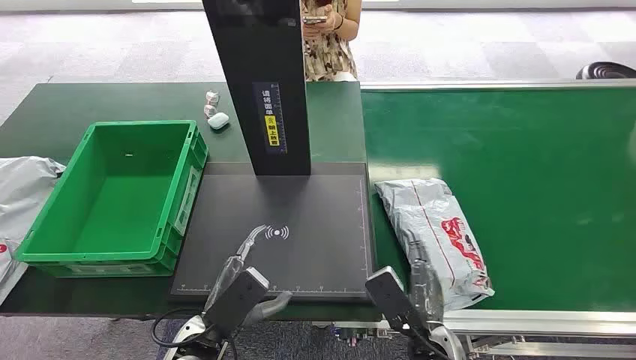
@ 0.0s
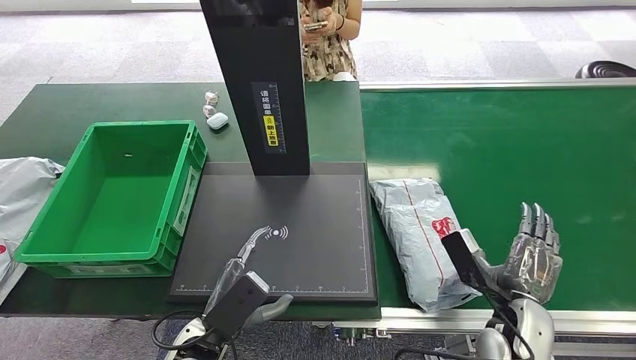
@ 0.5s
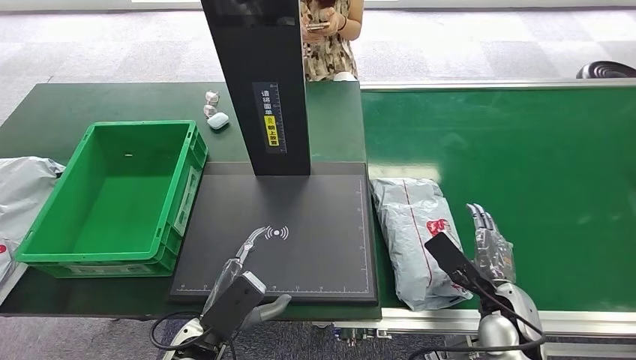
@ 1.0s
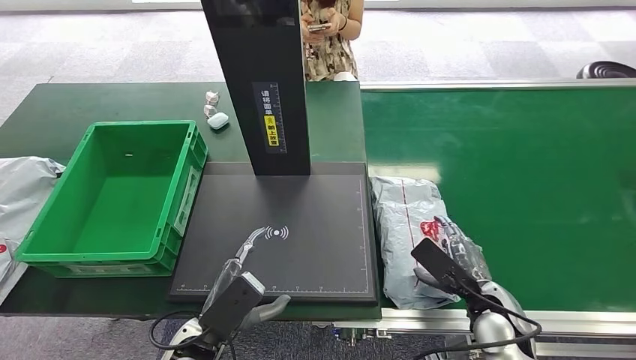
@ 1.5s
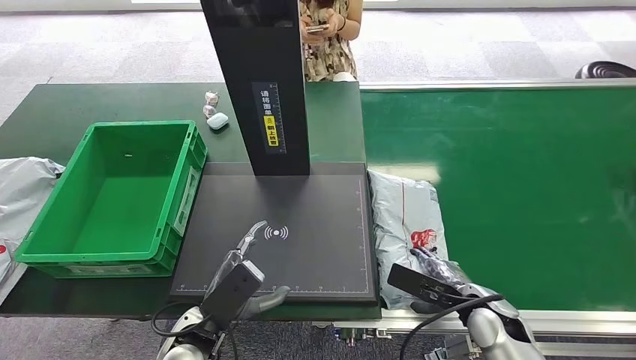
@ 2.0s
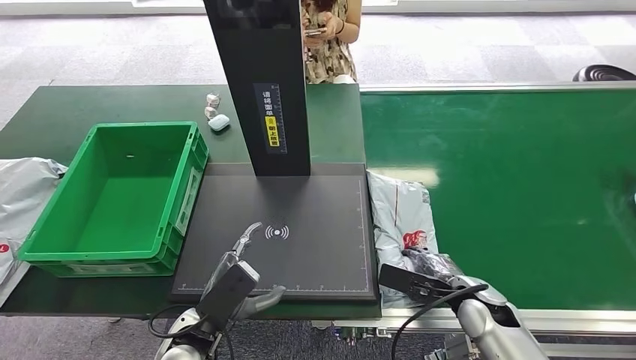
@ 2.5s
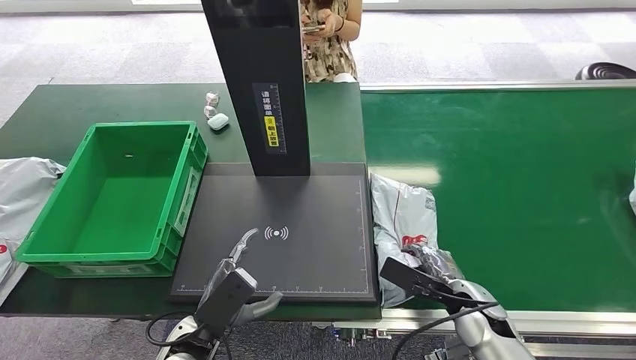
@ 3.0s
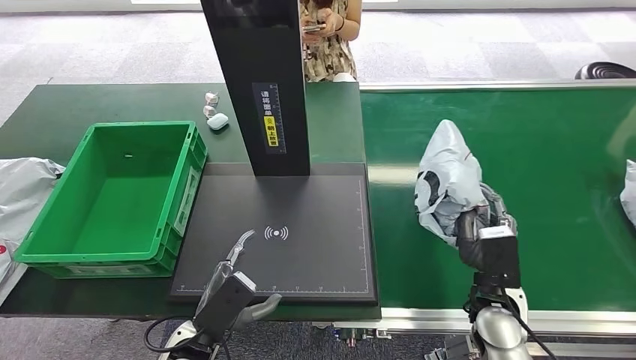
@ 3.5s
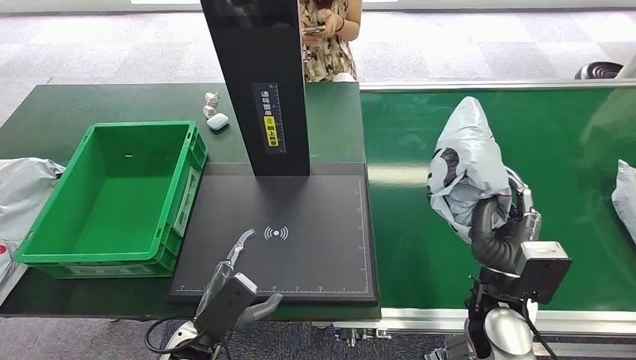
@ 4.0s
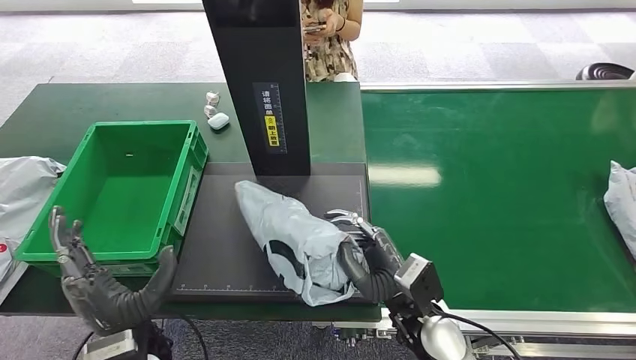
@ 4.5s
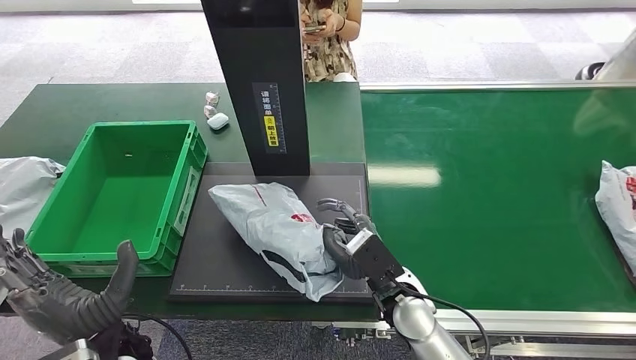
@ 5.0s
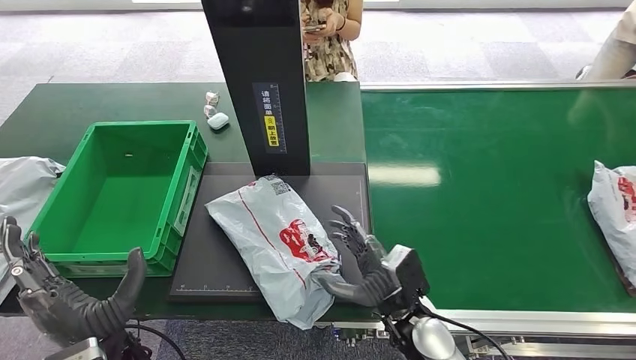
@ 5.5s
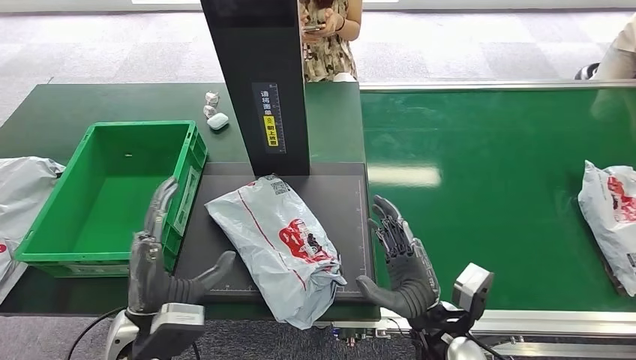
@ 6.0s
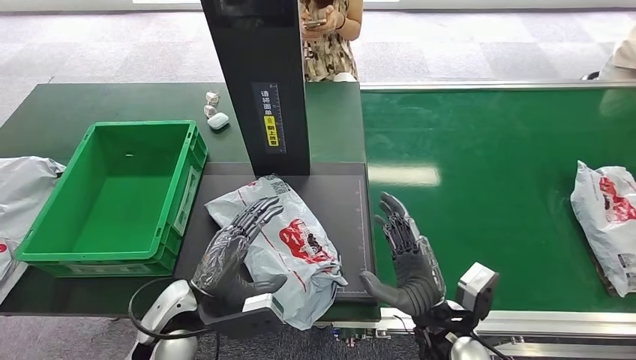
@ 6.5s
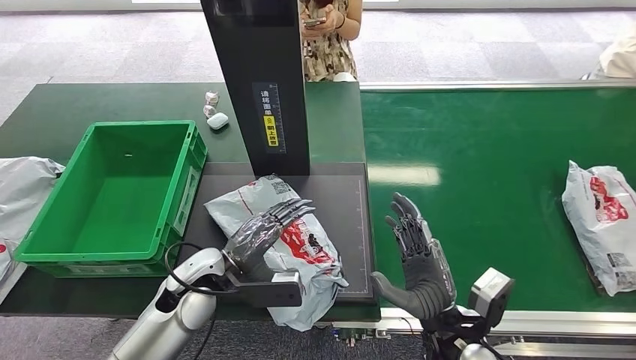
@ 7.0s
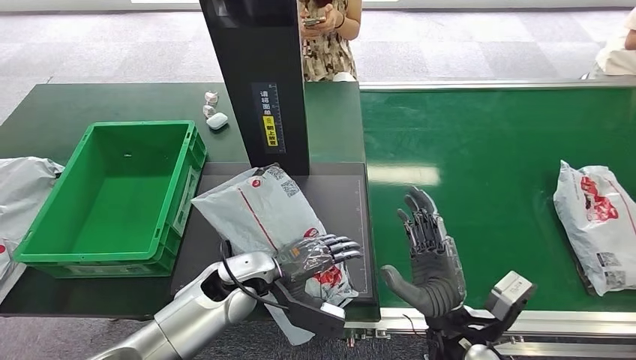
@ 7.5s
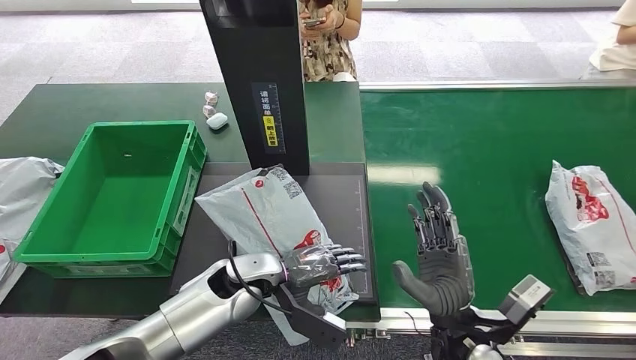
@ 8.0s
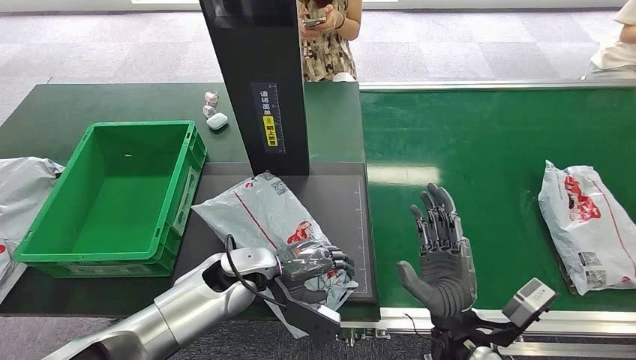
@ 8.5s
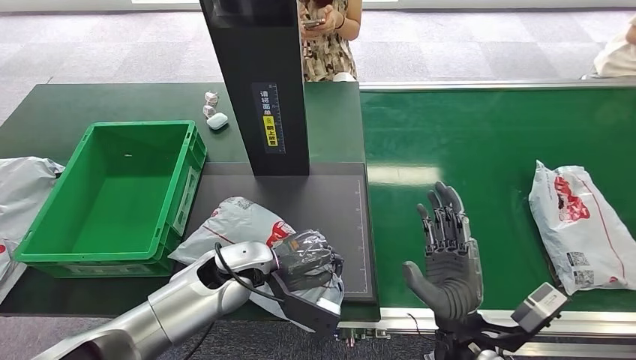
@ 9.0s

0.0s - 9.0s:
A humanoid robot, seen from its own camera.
Step, 0.0s - 3.5s: Pick up the package from the conveyor belt.
Step, 4.0s - 5.5s: Place the package onto the inbound machine.
2.0s - 4.5s: The right hand travels to the left and upward by approximately 15 cm; the left hand moves to the left, approximately 5 cm.
4.5s - 7.0s: The left hand shifts roughly 10 cm forward and to the right. Meanwhile the right hand ends up about 5 cm from where it was.
7.0s - 9.0s: The left hand moves to the right, roughly 5 cm.

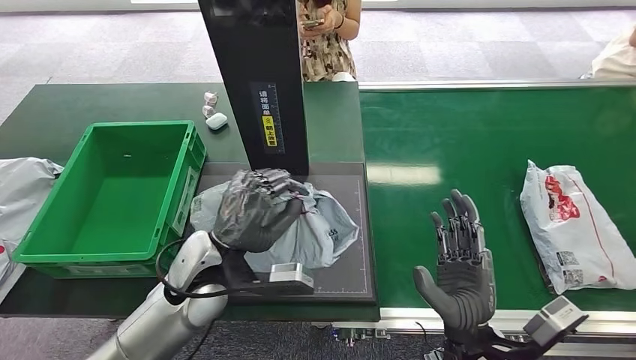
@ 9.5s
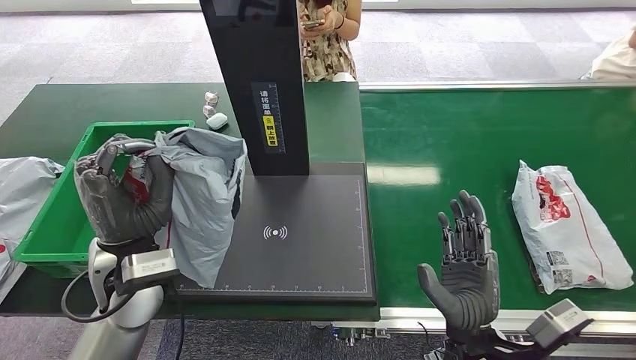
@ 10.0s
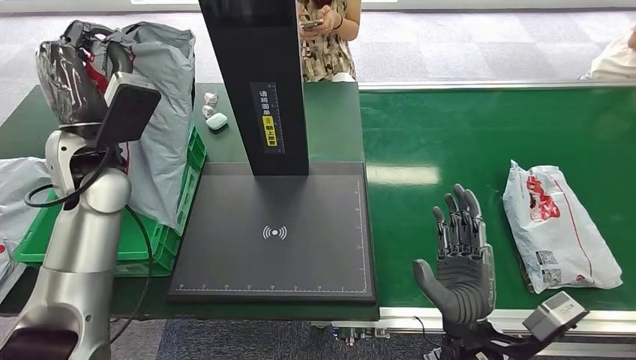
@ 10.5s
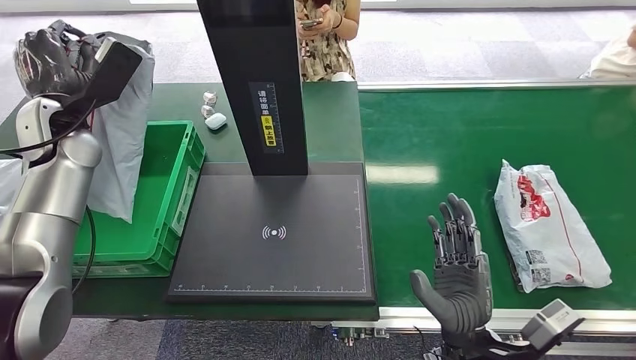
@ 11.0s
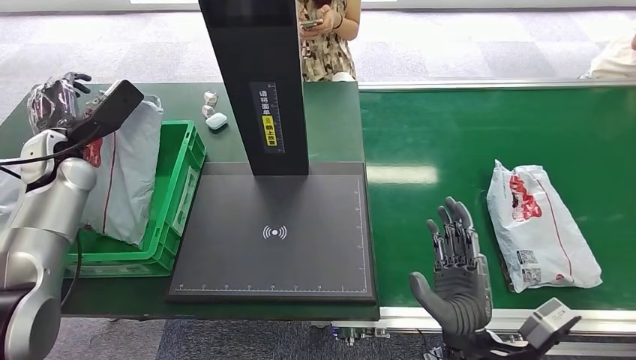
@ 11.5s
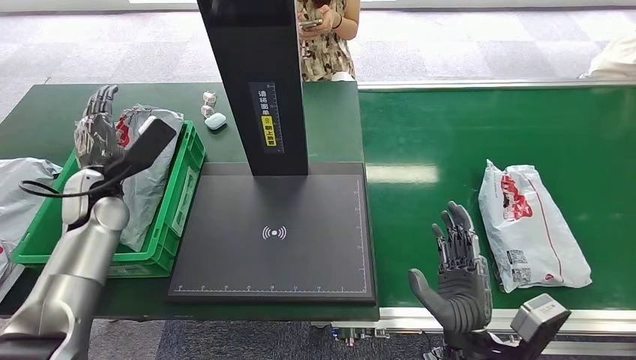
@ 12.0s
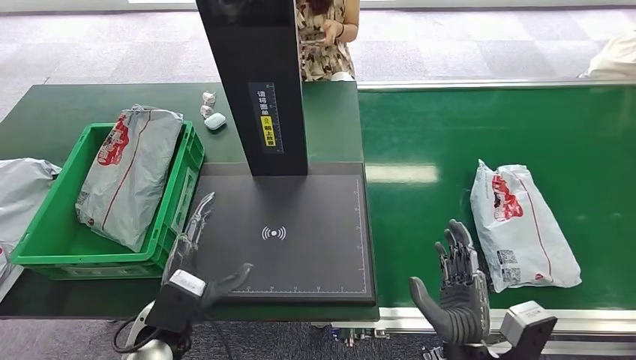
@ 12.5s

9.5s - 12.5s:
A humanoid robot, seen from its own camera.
Step, 10.0s - 12.0s: Place the package into the parcel locker.

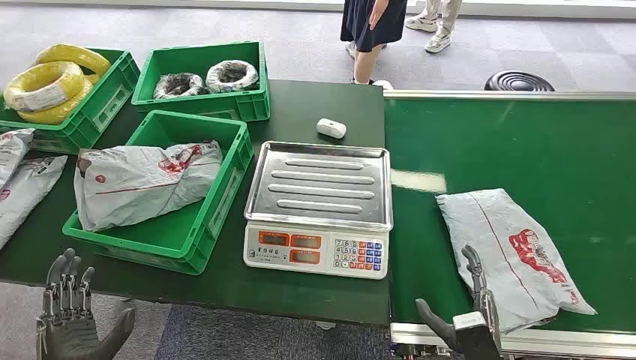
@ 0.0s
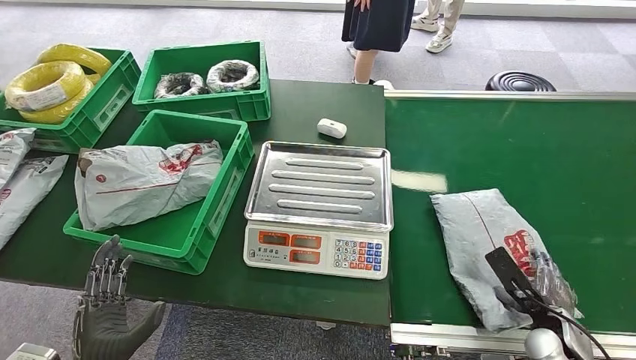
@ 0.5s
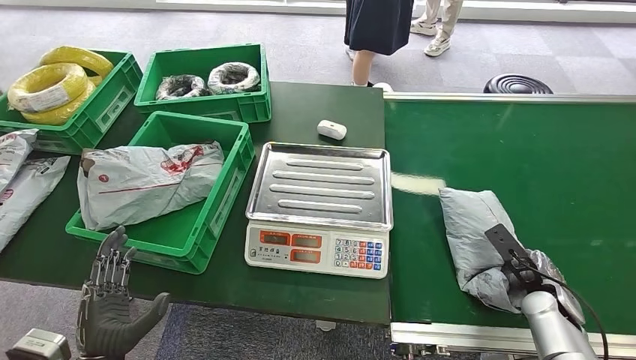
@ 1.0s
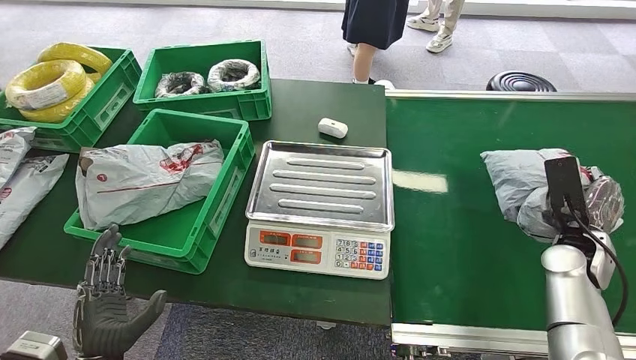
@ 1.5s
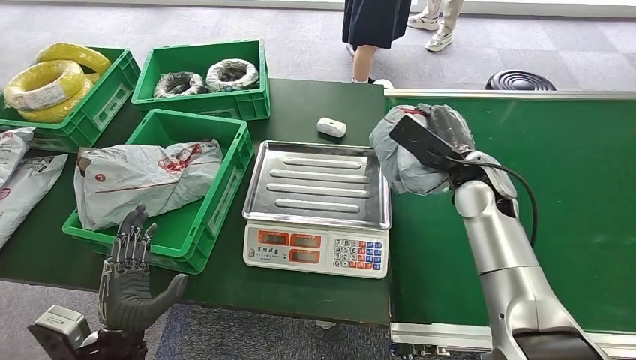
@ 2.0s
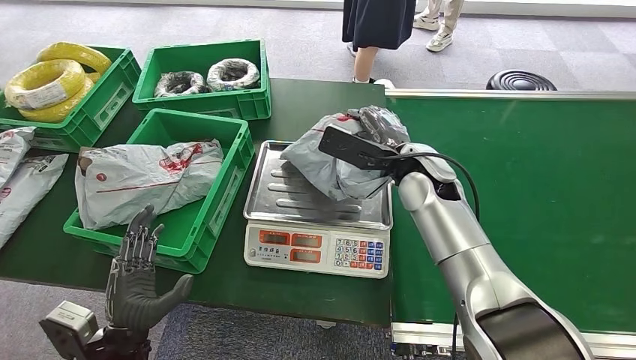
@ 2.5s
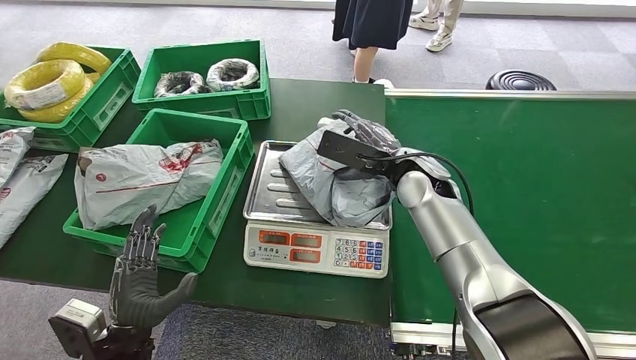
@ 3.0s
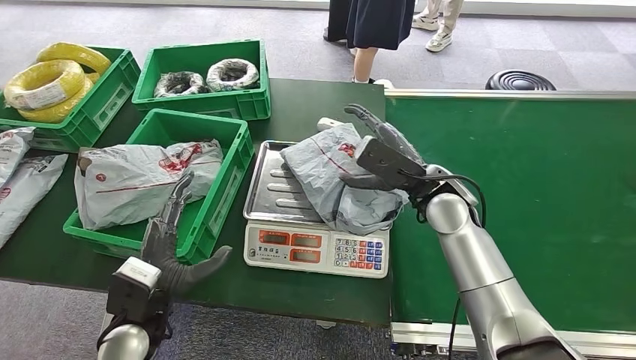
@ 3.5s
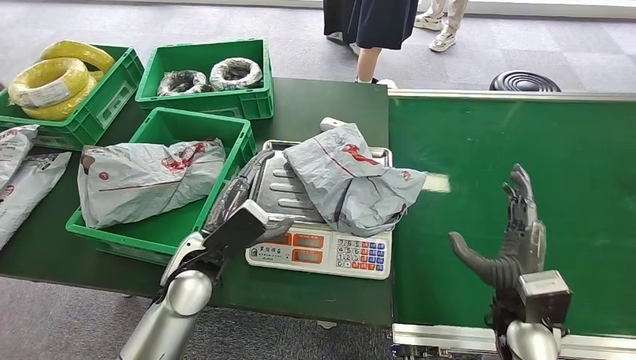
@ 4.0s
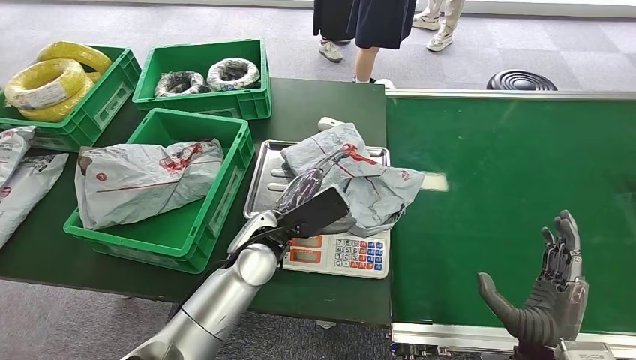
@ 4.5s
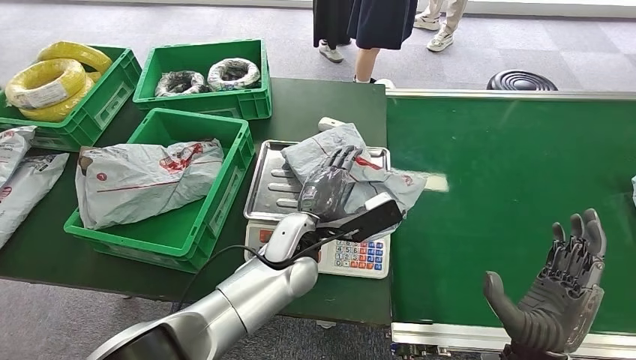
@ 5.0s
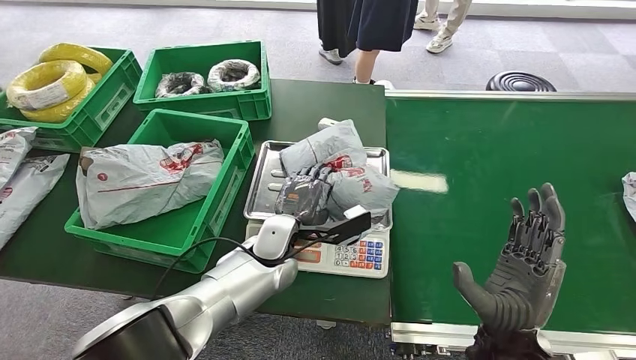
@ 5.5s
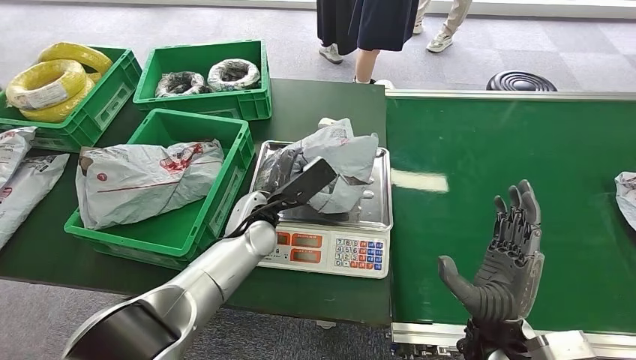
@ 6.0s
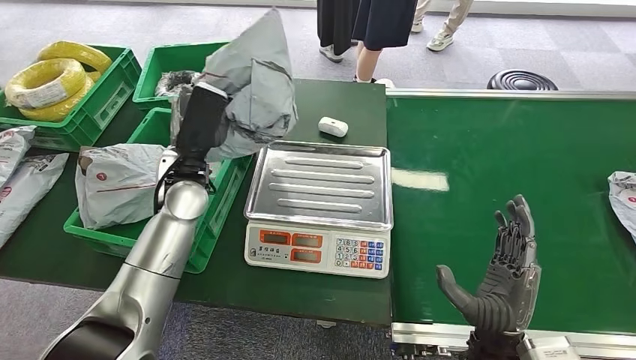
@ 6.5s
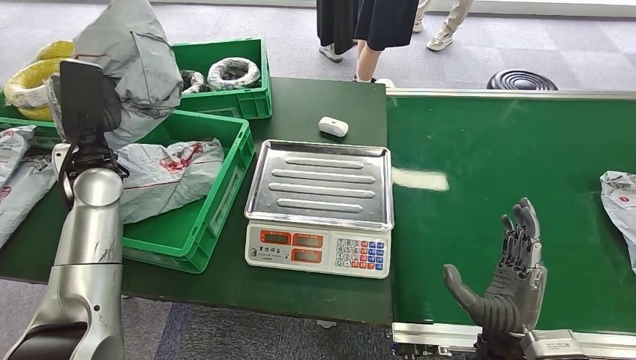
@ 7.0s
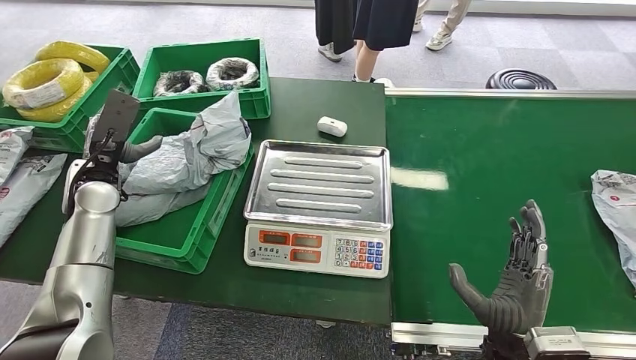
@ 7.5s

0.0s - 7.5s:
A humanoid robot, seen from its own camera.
Step, 0.0s - 1.0s: Pick up the package from the conveyor belt.
Step, 2.0s - 3.5s: Place the package onto the inbound machine.
Step, 4.0s - 6.5s: Pick up the package from the inbound machine.
Step, 7.0s - 7.5s: Place the package into the parcel locker.
